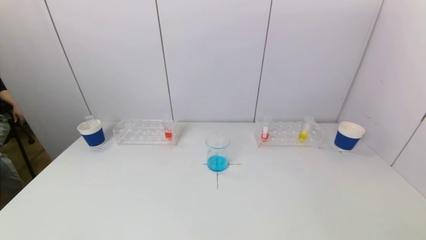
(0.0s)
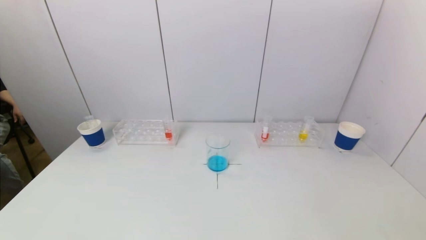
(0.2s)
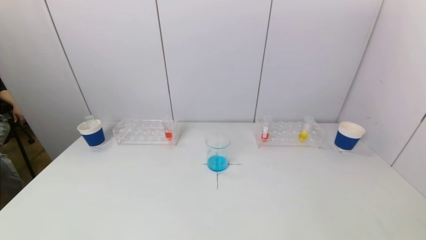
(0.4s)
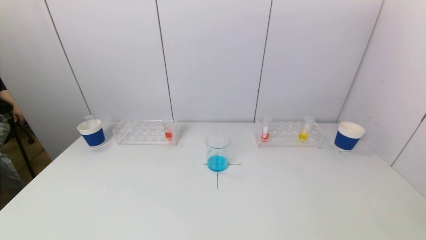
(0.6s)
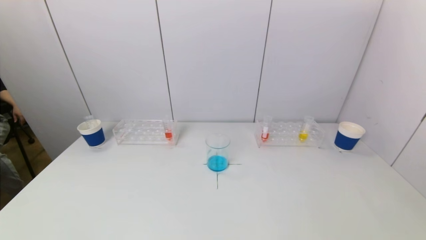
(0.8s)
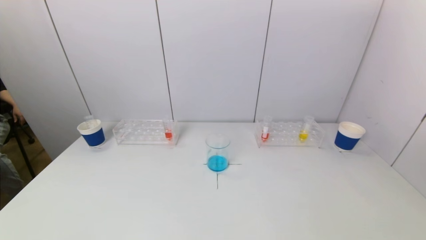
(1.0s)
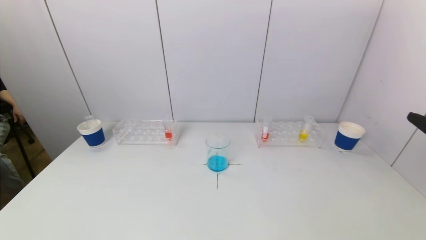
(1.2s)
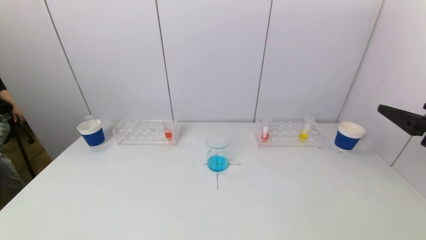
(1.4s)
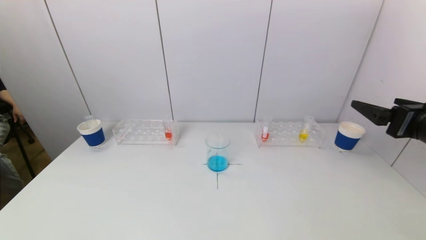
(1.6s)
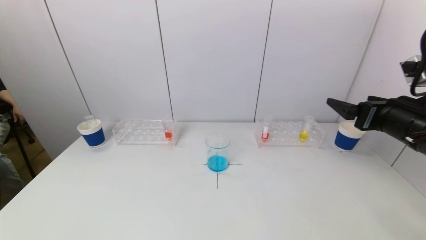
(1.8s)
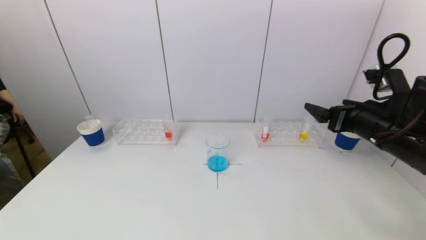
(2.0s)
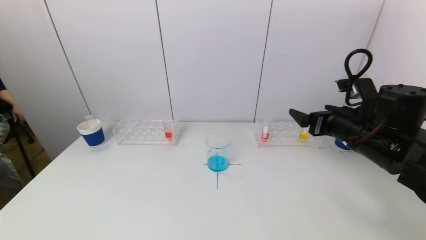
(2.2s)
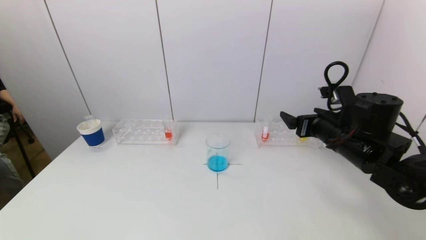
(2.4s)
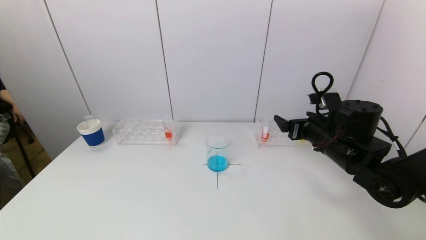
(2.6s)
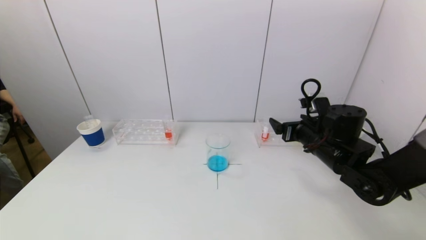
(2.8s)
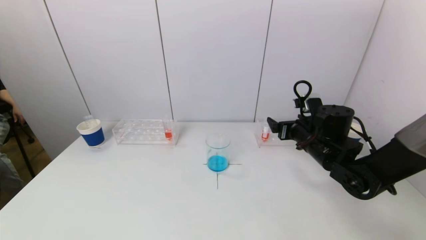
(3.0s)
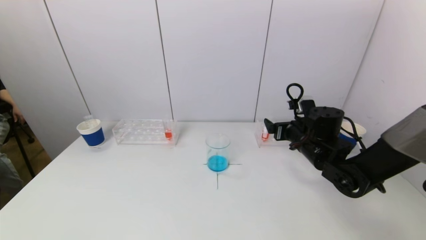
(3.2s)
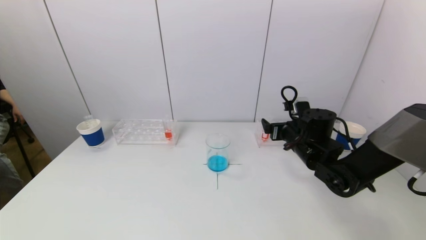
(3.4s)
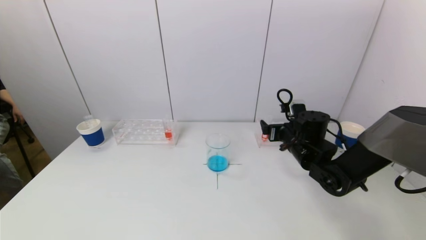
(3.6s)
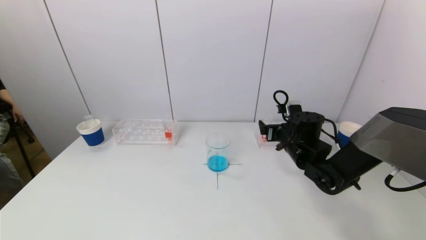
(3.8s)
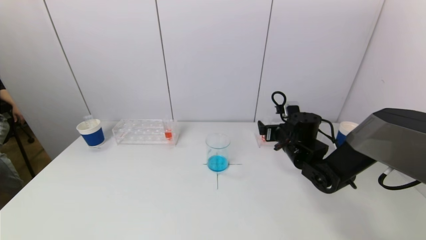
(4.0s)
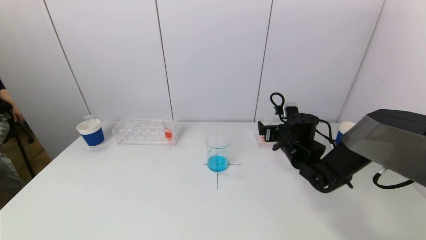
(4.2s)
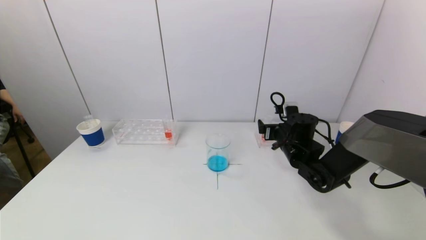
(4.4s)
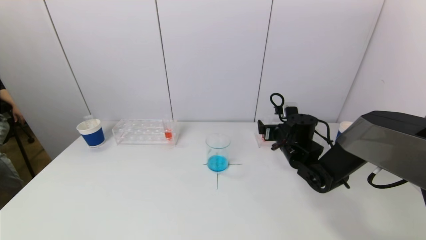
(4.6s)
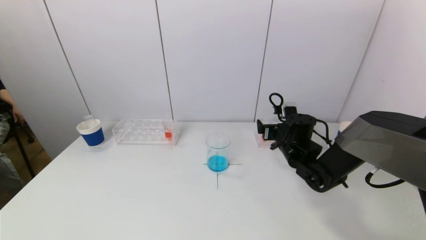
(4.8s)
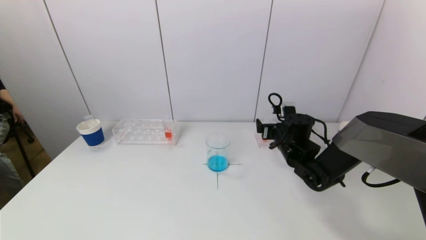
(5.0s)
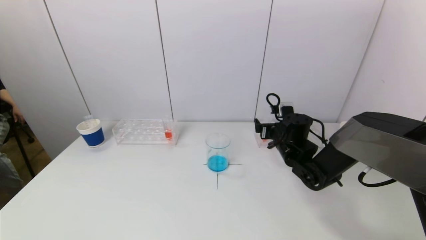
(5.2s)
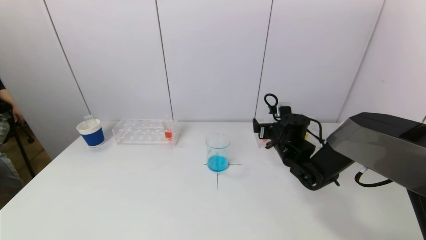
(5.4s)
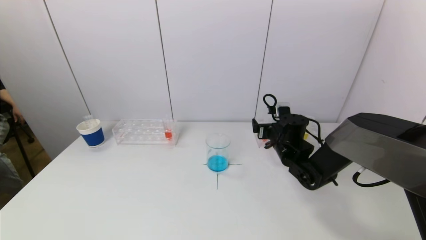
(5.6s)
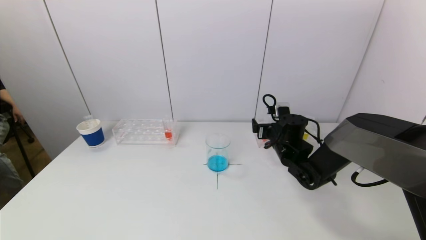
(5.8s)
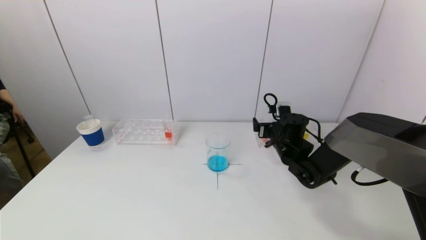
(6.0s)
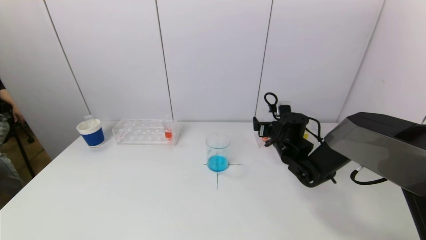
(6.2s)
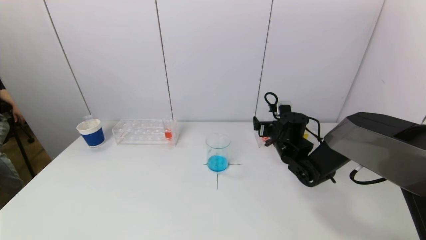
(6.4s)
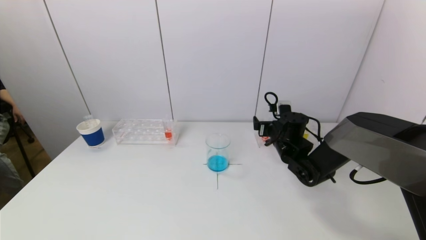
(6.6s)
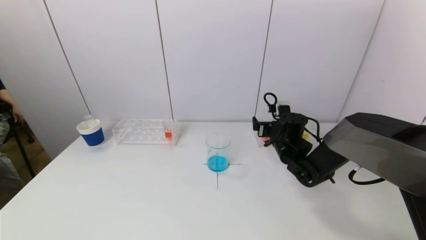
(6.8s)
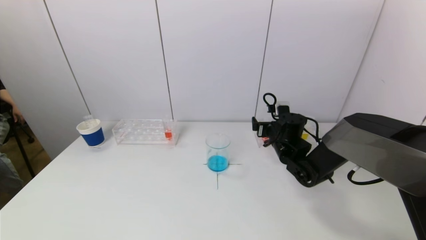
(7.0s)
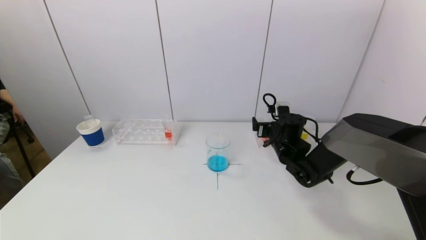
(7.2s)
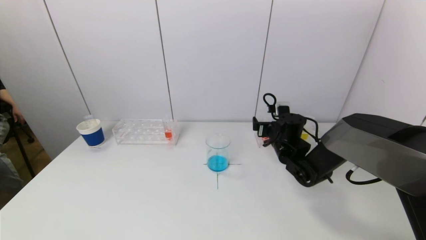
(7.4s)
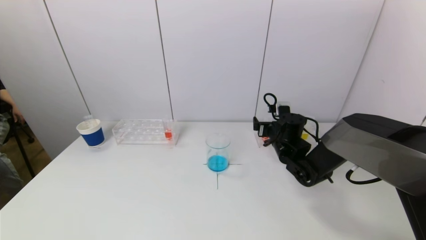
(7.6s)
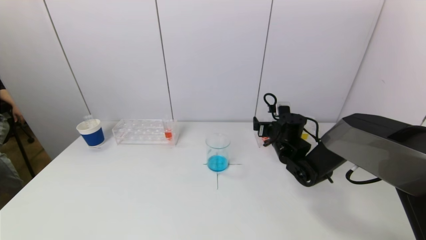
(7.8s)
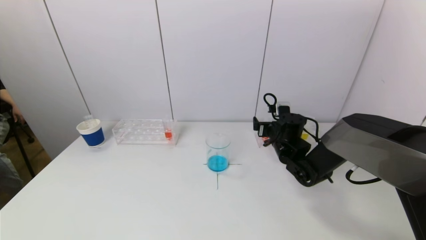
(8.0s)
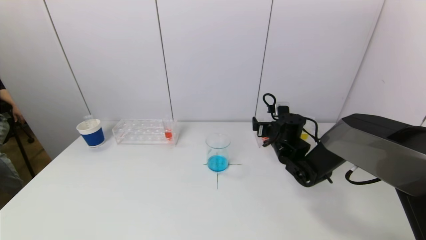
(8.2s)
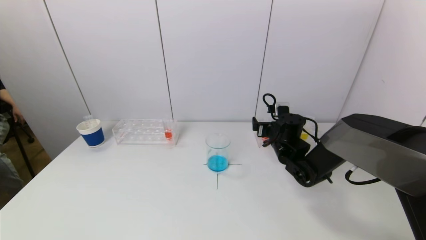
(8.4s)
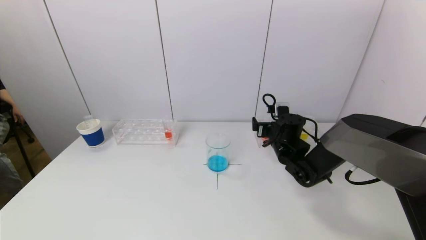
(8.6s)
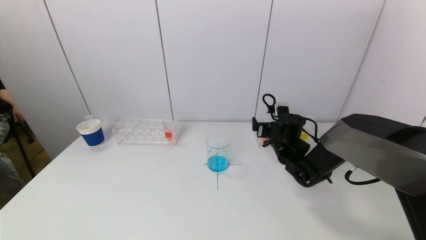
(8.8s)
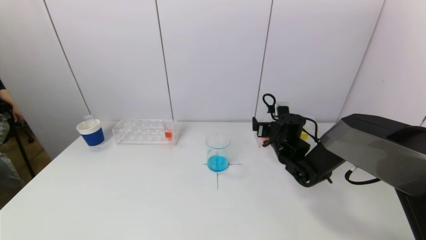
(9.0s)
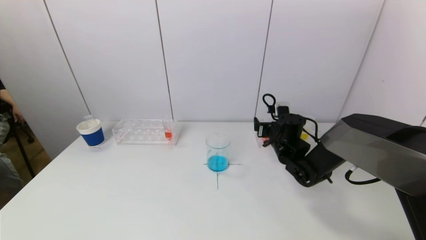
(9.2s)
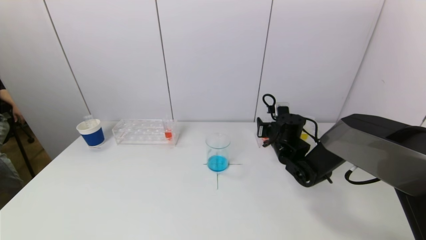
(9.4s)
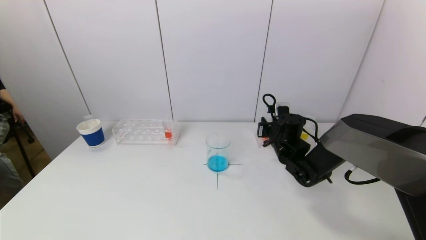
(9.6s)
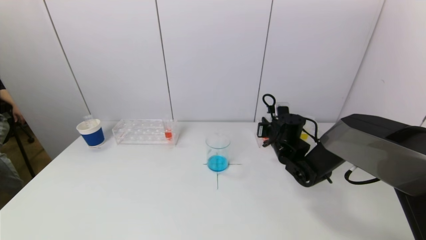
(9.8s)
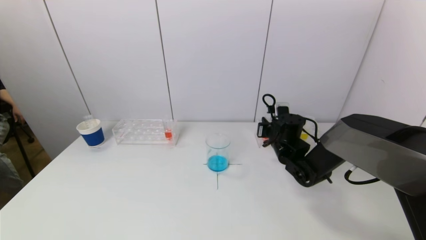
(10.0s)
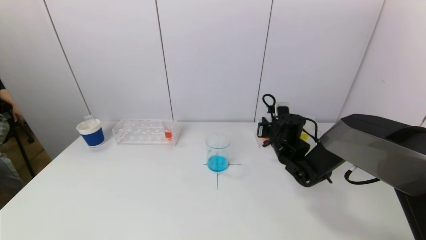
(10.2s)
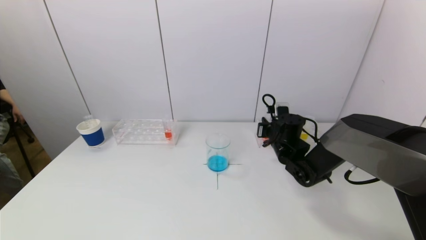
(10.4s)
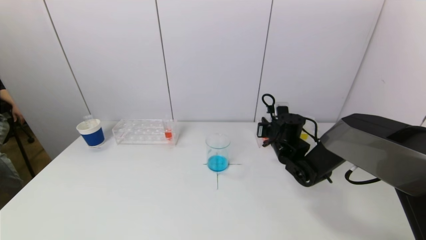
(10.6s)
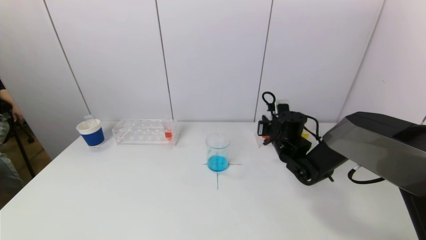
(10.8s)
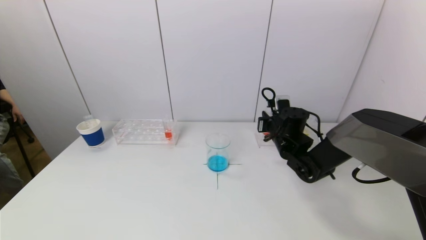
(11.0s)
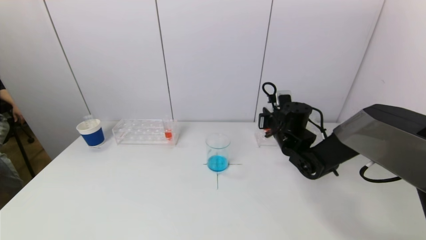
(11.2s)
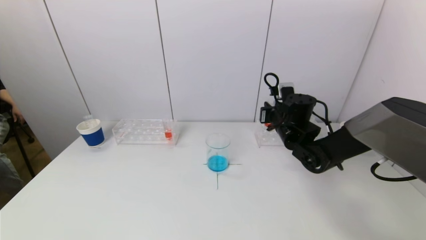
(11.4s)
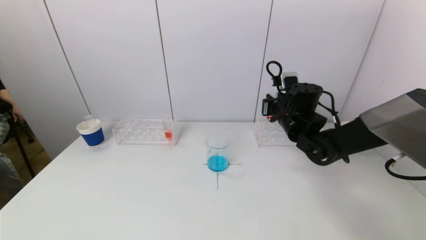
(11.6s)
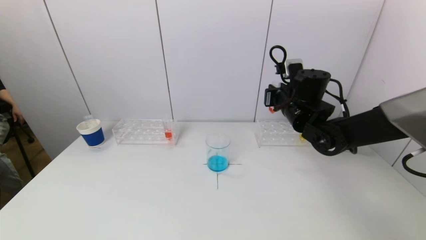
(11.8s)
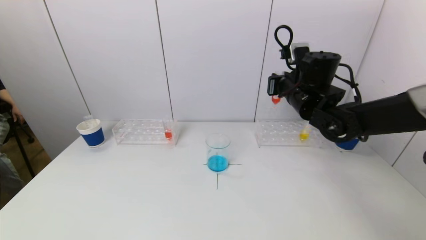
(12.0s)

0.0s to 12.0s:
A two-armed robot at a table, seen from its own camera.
Task of the whole recording: pick up a test tube with pigment on left test tube rack and a test tube with pigment on right test tube rack by grippers and pour them into the beaker.
Step, 0.0s to 10.2s: Grasp the red reagent with the right gripper.
0.0s to 1.6s: The right gripper moves forward and upward, about 25 cm.
1.6s to 3.0s: The right gripper shifts about 20 cm forward, downward and to the left.
3.0s to 4.4s: The right gripper moves some 5 cm.
4.4s to 6.0s: The grippers move only a little.
6.0s to 9.0s: Both grippers stay put.
10.4s to 12.0s: The right gripper shifts some 15 cm upward.

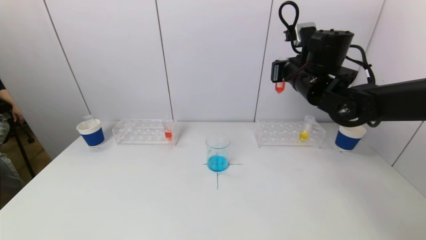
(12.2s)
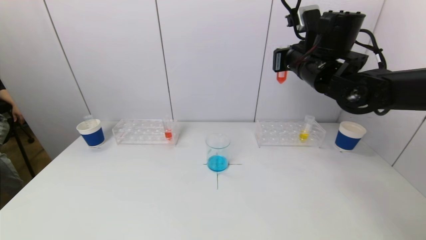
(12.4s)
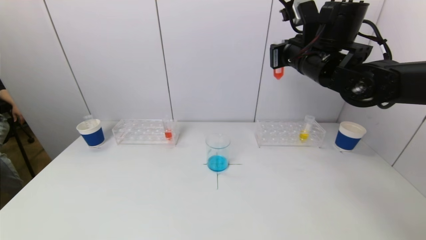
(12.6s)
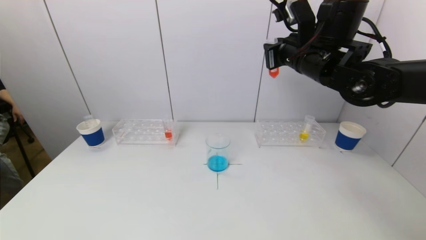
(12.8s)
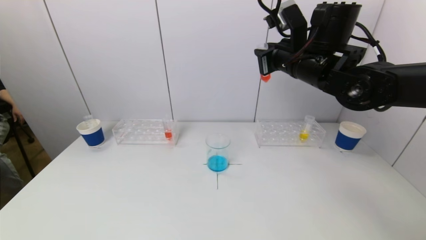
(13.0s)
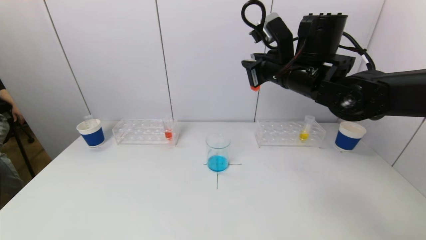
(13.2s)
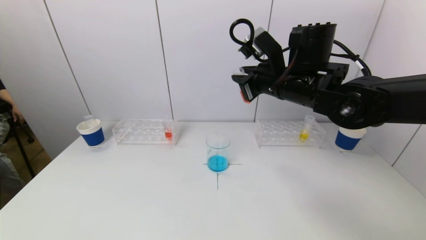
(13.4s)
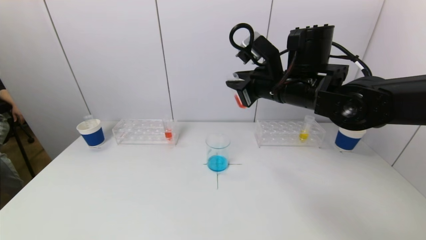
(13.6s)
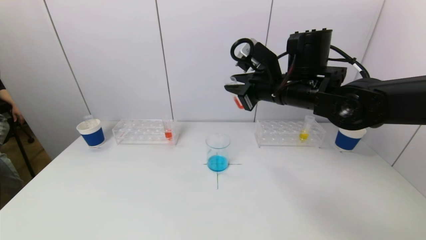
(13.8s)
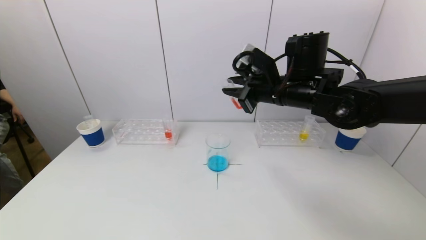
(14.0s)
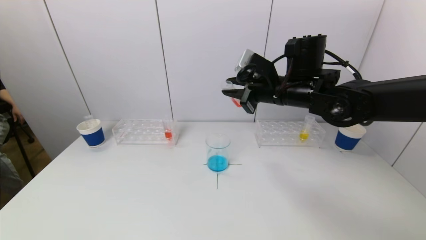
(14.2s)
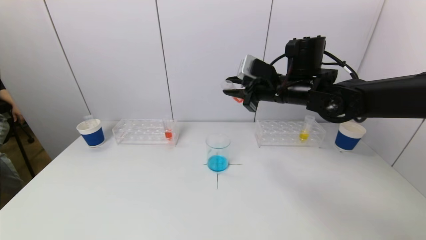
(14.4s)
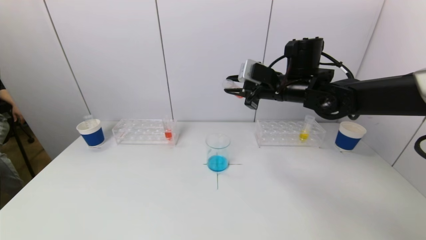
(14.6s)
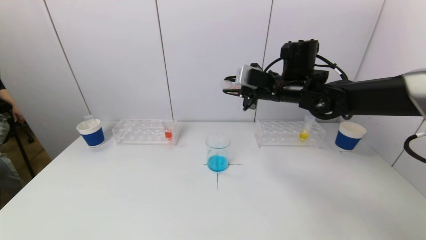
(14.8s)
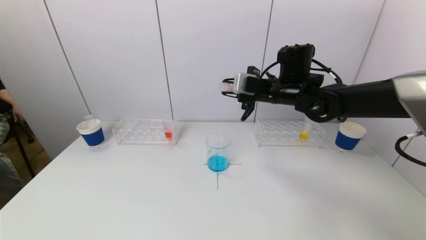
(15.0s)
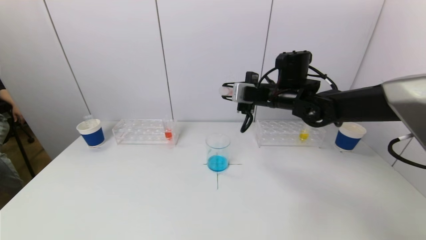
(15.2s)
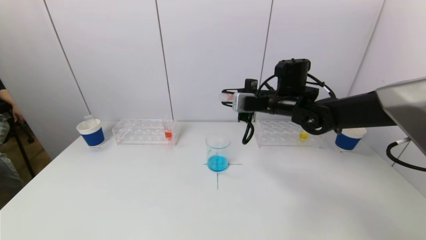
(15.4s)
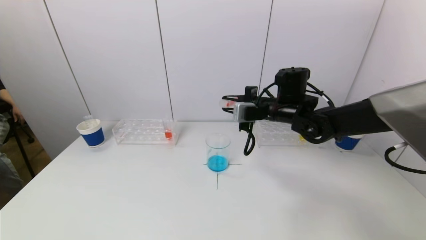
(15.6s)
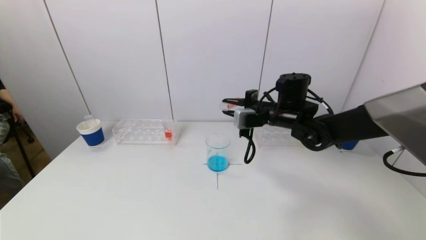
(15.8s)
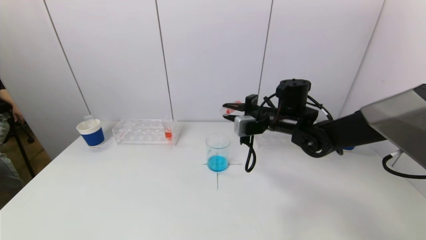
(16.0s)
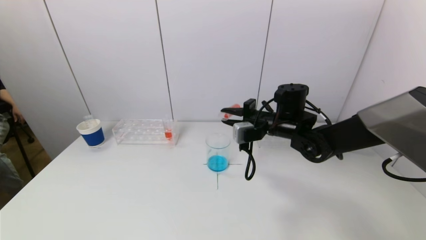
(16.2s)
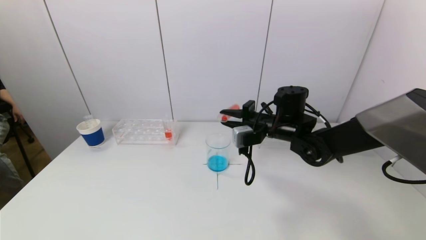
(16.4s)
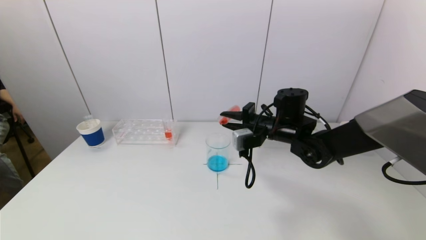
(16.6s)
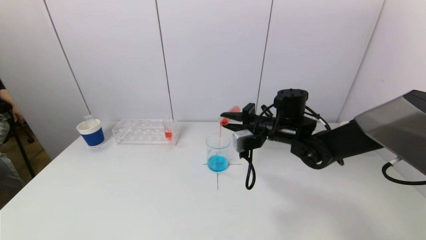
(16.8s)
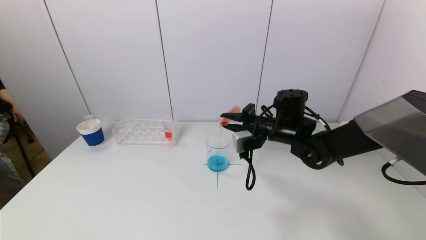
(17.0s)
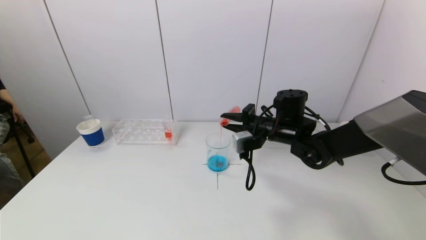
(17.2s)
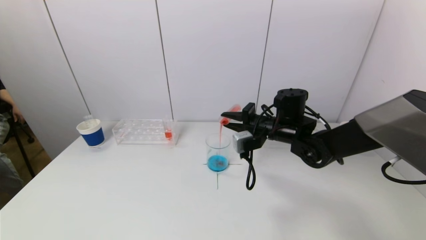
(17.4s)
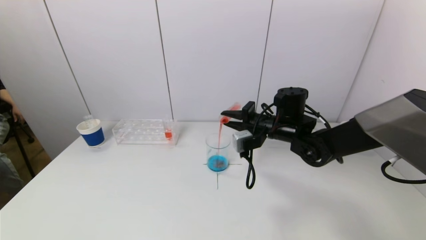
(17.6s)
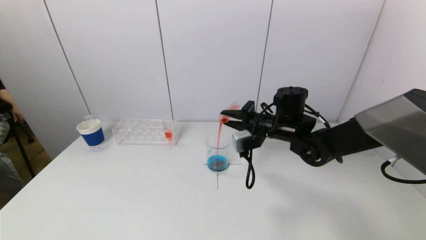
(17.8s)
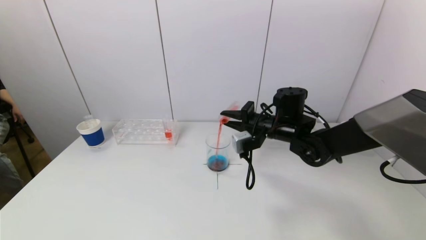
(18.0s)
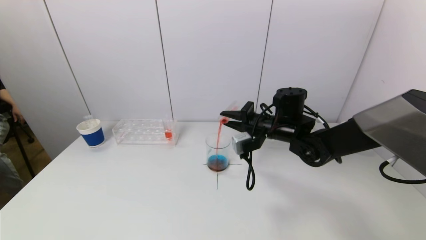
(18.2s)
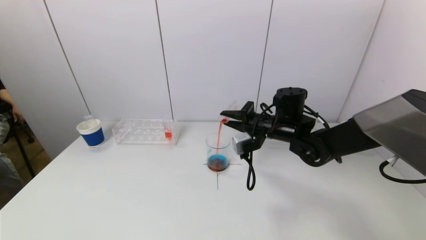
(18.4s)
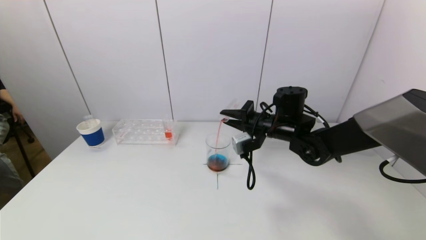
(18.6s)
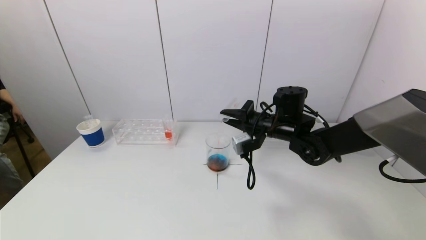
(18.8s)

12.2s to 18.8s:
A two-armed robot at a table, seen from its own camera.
Task of the whole recording: pick up a test tube with pigment on left test tube rack and a test tube with pigment on right test tube rack by grippers and pour them into the beaker.
12.2s to 13.8s: The right gripper travels to the left by about 5 cm.
13.8s to 15.4s: The right gripper shifts approximately 10 cm forward and downward.
15.4s to 17.2s: The right gripper is displaced downward by roughly 5 cm.
17.2s to 18.8s: The grippers make only small movements.
